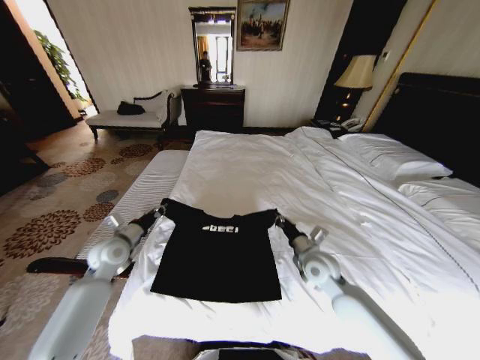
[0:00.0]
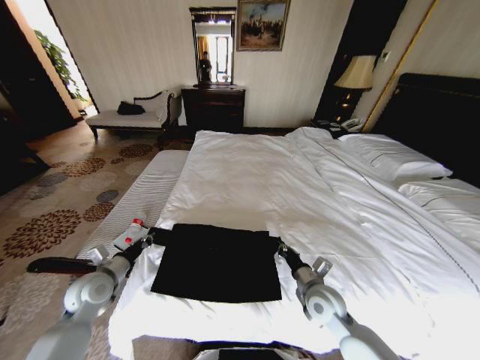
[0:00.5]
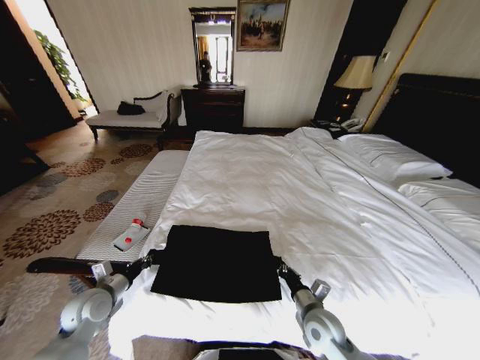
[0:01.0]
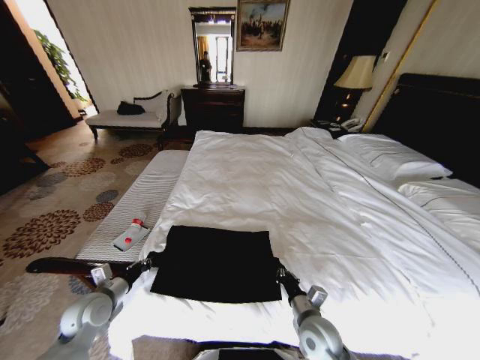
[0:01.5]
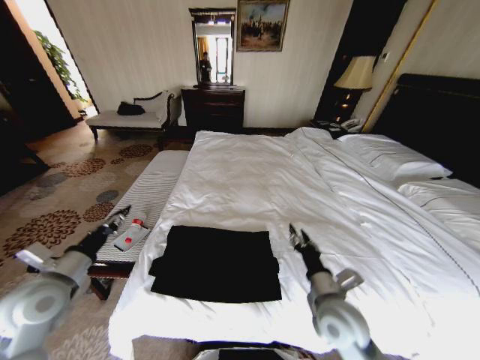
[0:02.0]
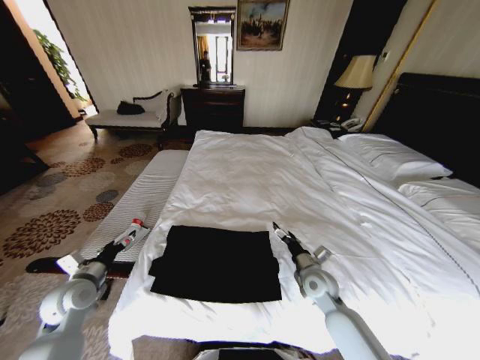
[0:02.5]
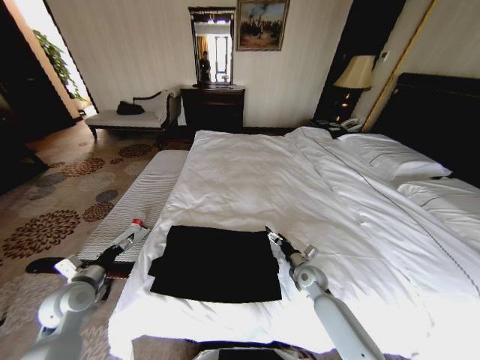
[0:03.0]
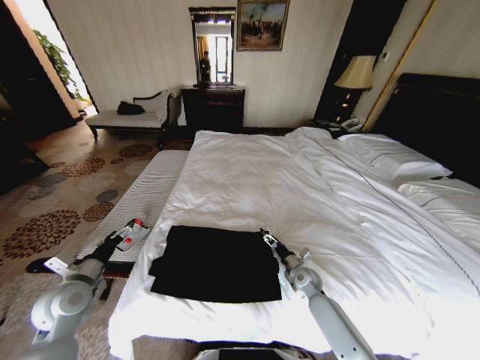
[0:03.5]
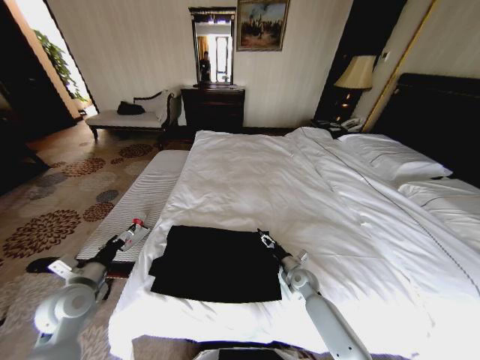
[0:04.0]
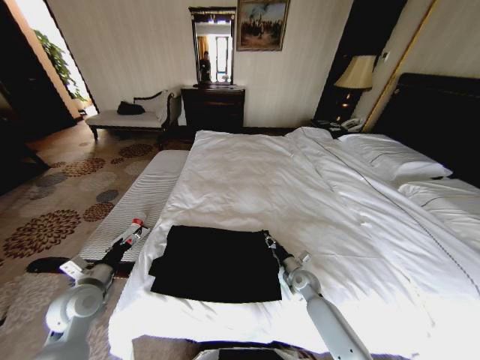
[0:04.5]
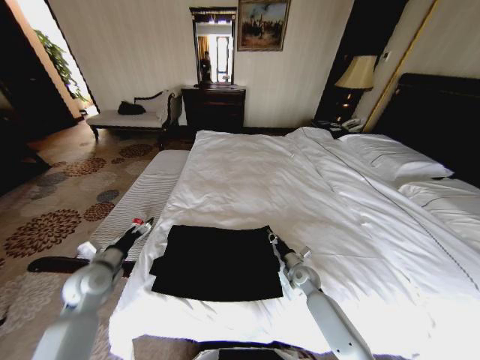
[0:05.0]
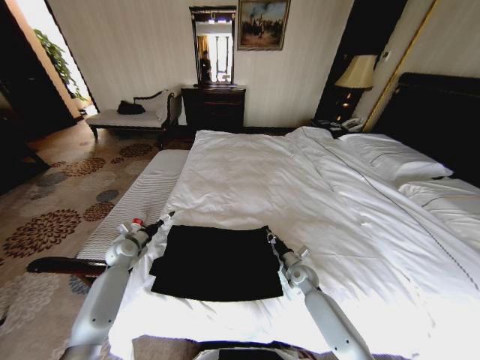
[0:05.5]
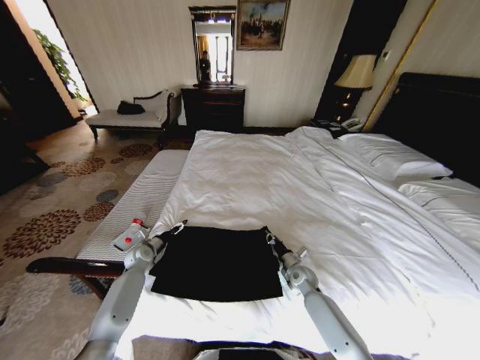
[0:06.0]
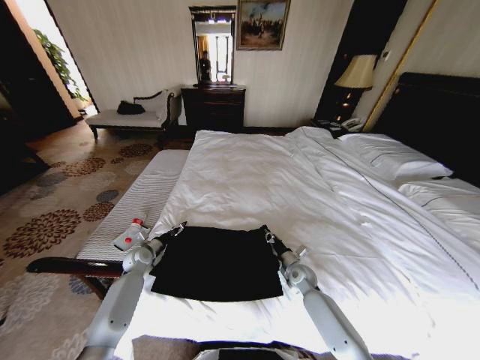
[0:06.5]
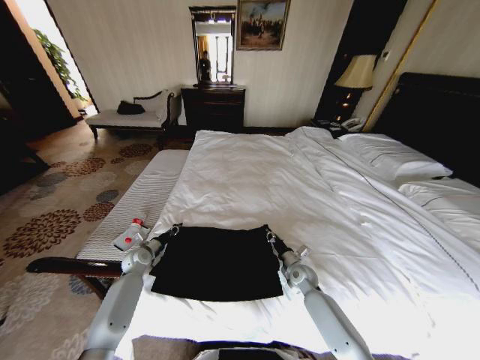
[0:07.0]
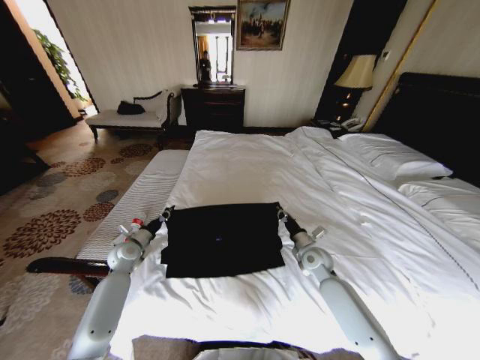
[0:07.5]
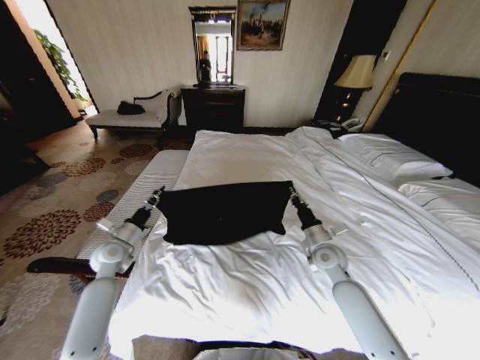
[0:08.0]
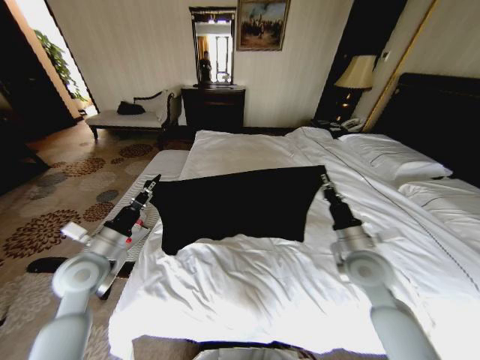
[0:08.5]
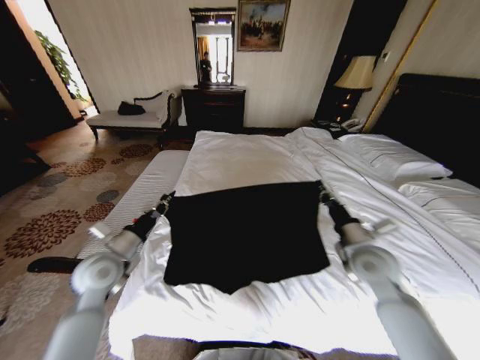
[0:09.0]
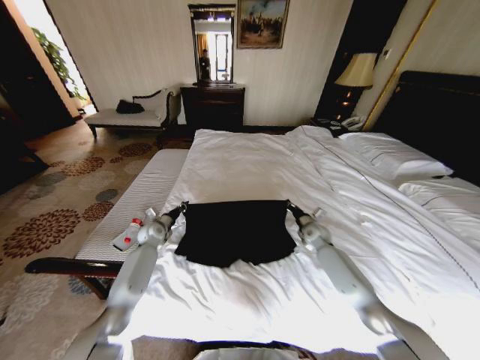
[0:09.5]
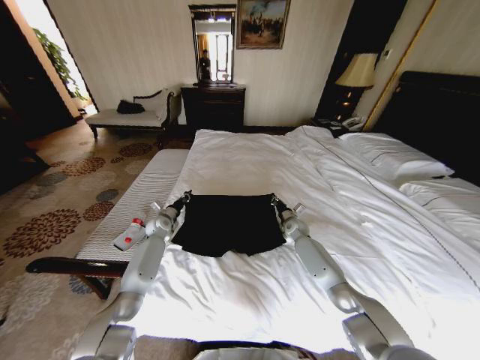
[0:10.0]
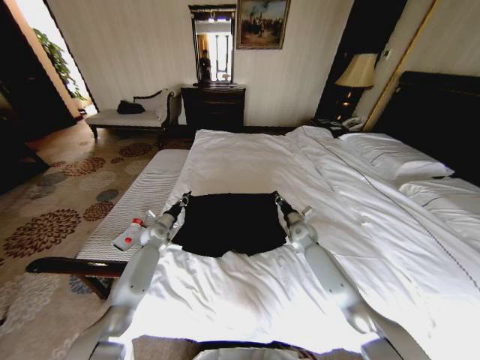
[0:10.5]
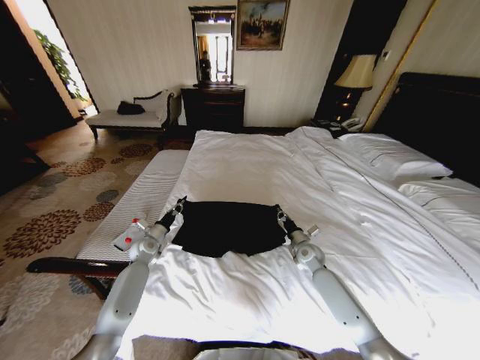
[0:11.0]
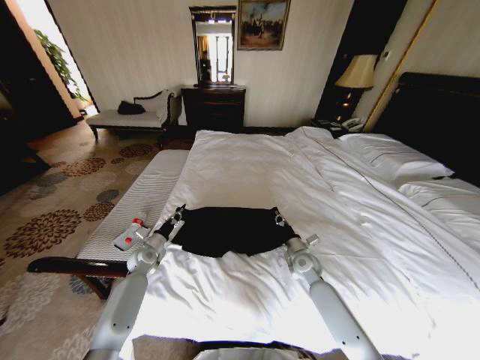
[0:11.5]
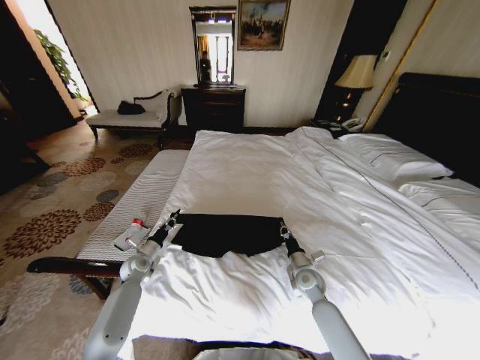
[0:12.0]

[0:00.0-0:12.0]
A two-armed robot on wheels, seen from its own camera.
Task of the whole recording: Fold the clothes on the bed.
0:00.0 to 0:02.0: The right gripper travels backward by some 15 cm, and opens. Meanwhile the left gripper travels backward and upward by about 15 cm, and opens its fingers.
0:02.0 to 0:04.0: The left gripper is displaced downward by approximately 5 cm, and opens. The right gripper shifts some 25 cm downward and forward.
0:04.0 to 0:06.0: The right gripper closes its fingers, while the left gripper heads forward and downward, covering approximately 25 cm.
0:06.0 to 0:08.0: The left gripper heads upward and backward, covering approximately 15 cm, and closes; the right gripper travels upward by about 15 cm.
0:08.0 to 0:10.0: The left gripper goes approximately 20 cm forward, to the right and downward; the right gripper heads forward and downward, covering some 20 cm.
0:10.0 to 0:12.0: The right gripper shifts roughly 20 cm backward. Meanwhile the left gripper goes roughly 15 cm backward and to the left.

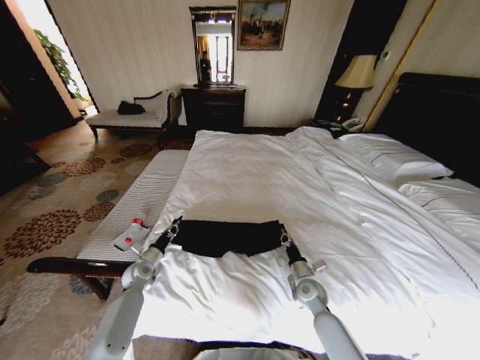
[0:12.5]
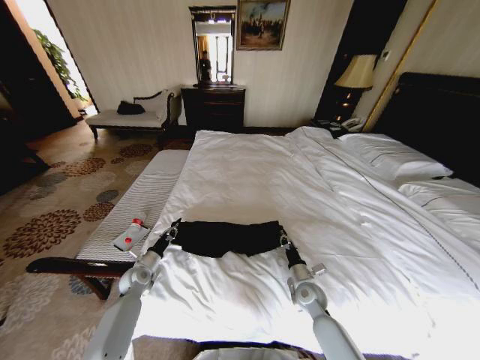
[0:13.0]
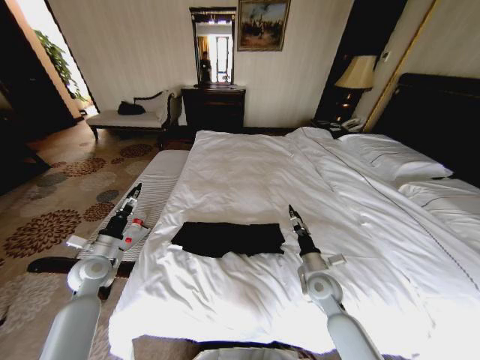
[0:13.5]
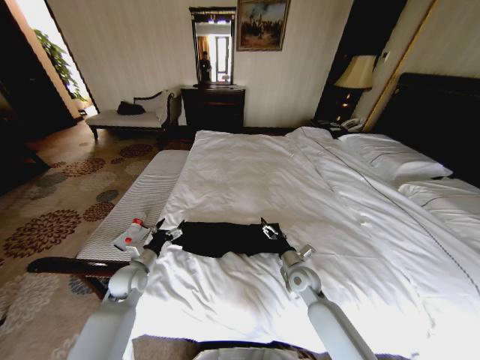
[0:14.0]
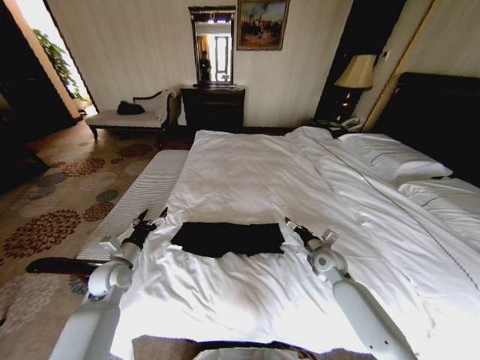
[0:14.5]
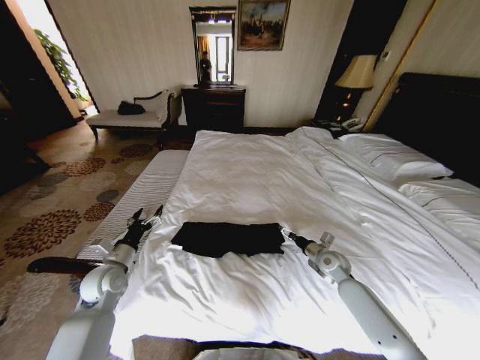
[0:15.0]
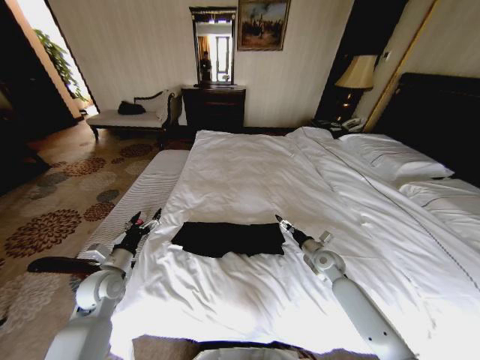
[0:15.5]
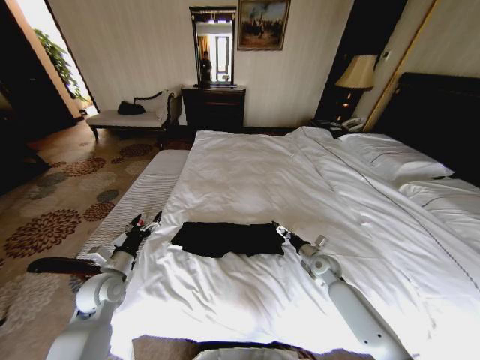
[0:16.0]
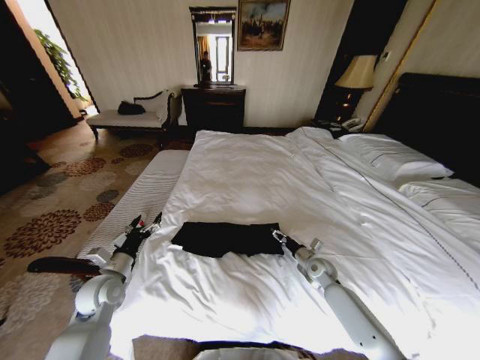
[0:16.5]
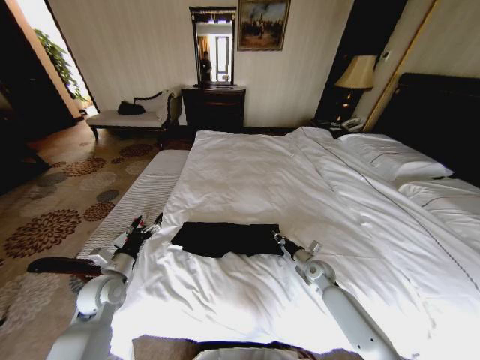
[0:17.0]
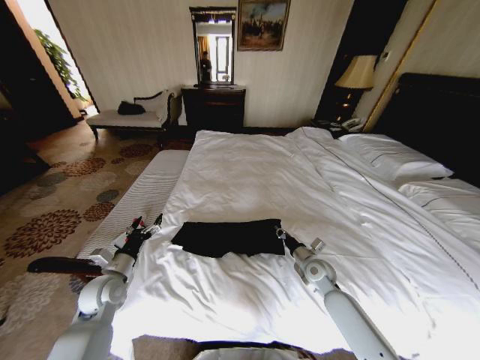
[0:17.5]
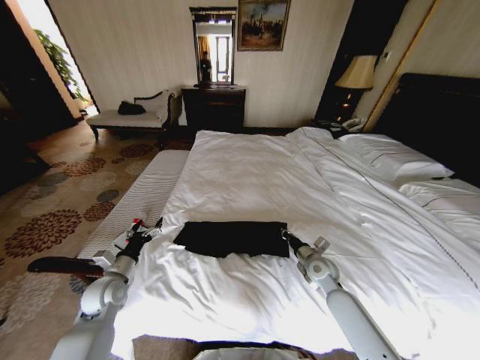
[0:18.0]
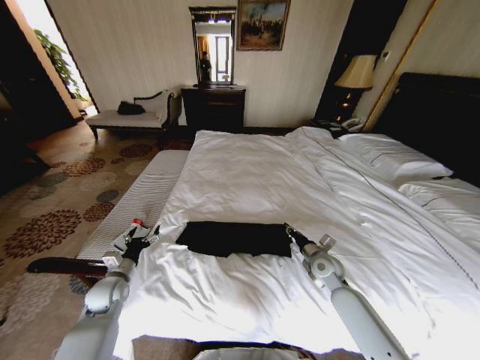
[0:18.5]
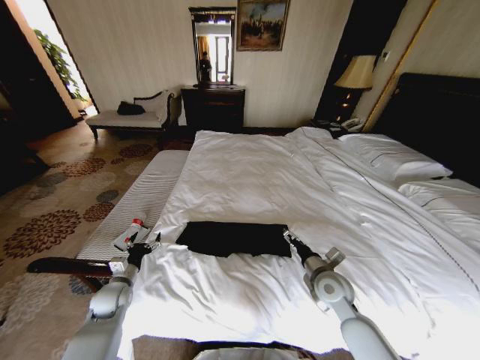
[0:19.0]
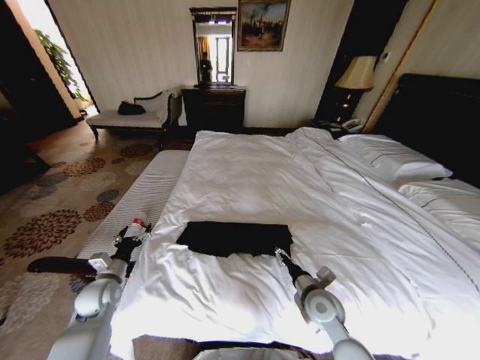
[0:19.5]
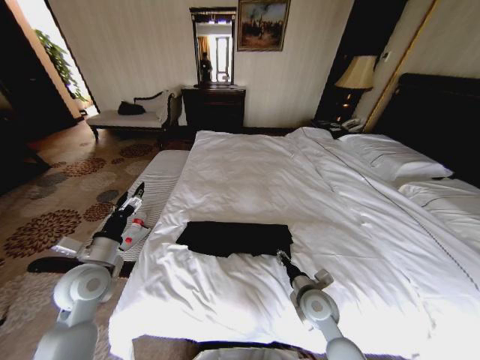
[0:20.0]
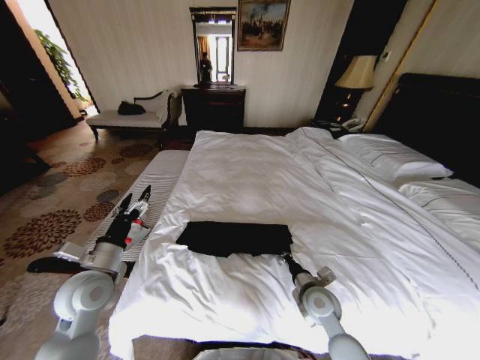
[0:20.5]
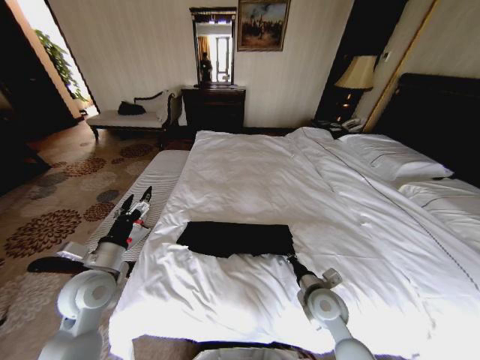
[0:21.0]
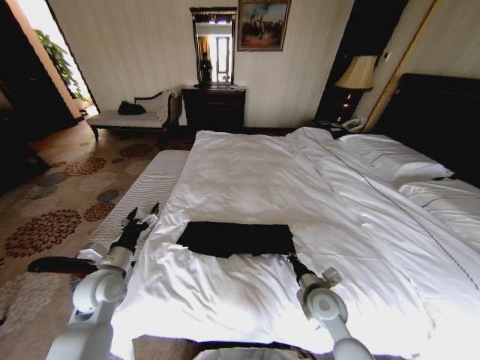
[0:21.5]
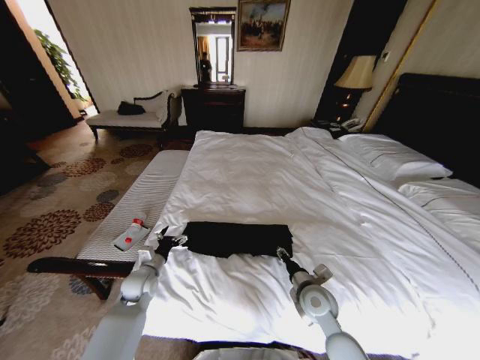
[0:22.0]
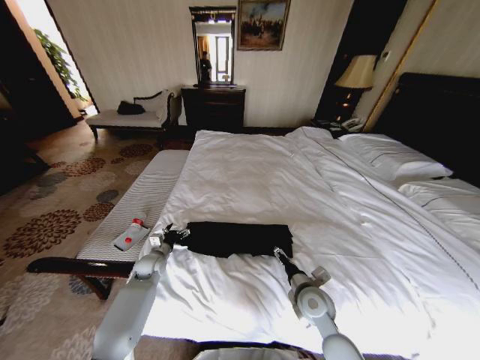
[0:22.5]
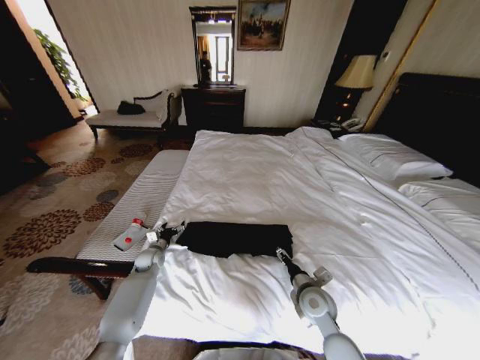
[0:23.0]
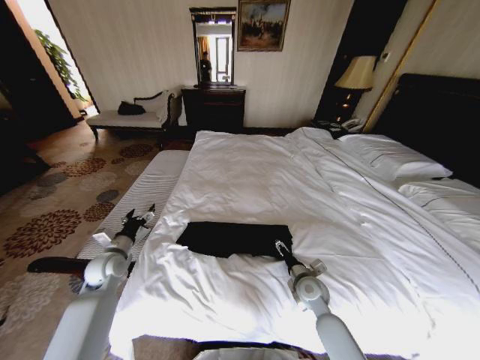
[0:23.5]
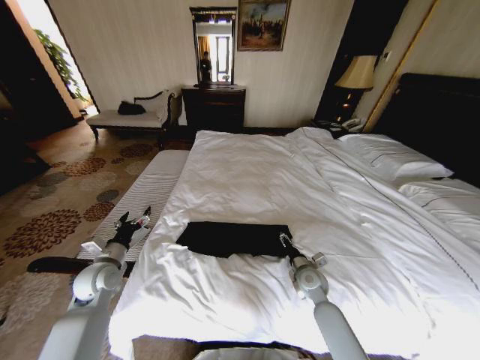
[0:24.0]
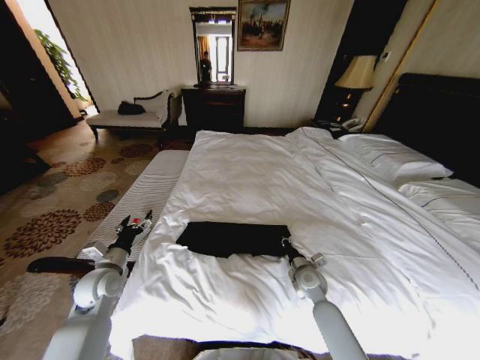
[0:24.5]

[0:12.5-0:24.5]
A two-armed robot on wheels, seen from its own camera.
Task of the whole recording: Fold the clothes on the bed.
0:12.5 to 0:14.5: The left gripper goes up and down, roughly 15 cm each way, reversing 2 times, and opens up; the right gripper moves upward, forward and to the right, about 10 cm, and opens.
0:14.5 to 0:16.5: The right gripper is displaced downward by approximately 5 cm.
0:16.5 to 0:18.5: The right gripper goes roughly 5 cm upward, and closes up, while the left gripper is displaced downward by roughly 5 cm.
0:18.5 to 0:20.5: The right gripper heads backward and to the left, covering roughly 15 cm, and opens, then closes once more, while the left gripper goes approximately 15 cm upward.
0:20.5 to 0:22.5: The right gripper opens its fingers. Meanwhile the left gripper heads downward and forward, covering approximately 25 cm.
0:22.5 to 0:24.5: The right gripper moves forward and downward, about 10 cm, and closes up. The left gripper moves upward, backward and to the left, approximately 15 cm.

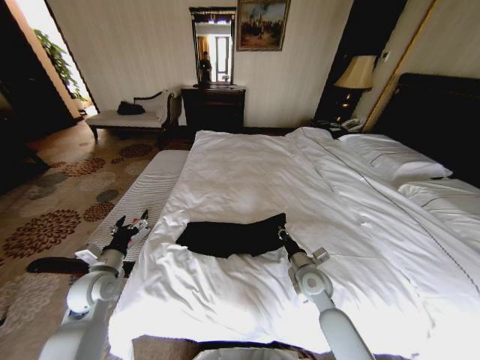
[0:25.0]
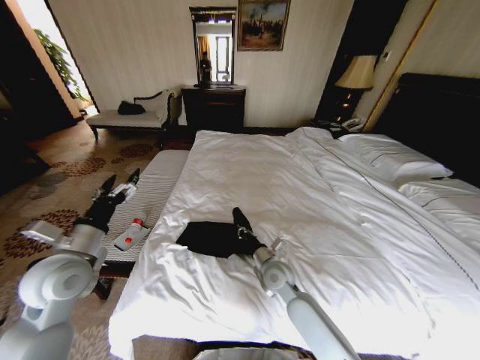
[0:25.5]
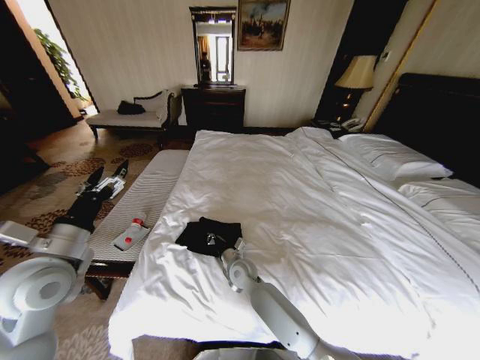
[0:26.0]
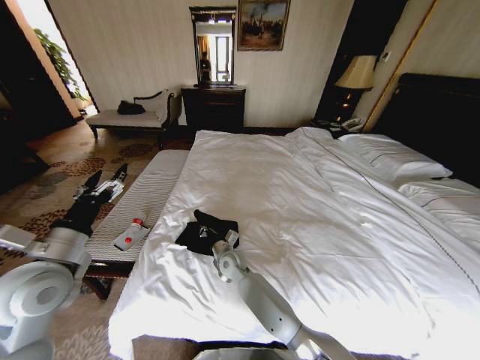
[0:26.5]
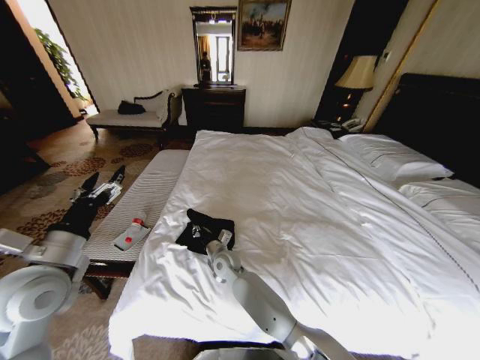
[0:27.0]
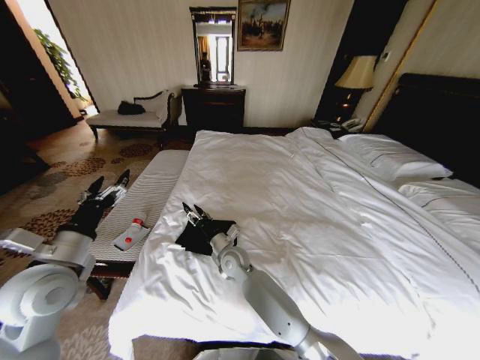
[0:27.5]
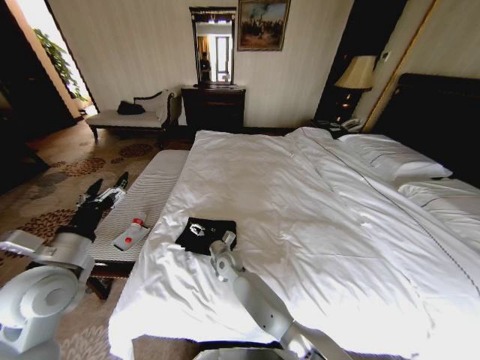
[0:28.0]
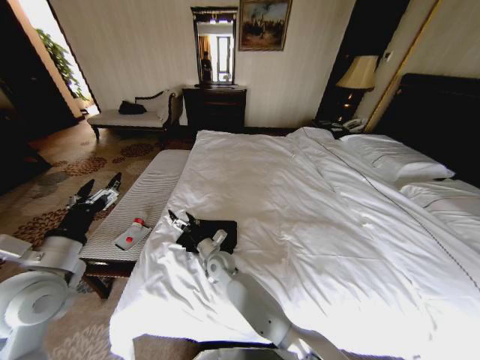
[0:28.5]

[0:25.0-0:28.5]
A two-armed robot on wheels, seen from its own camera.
Task of the whole recording: Fold the clothes on the bed.
0:25.0 to 0:27.0: The right gripper moves to the left, roughly 25 cm. Meanwhile the left gripper heads upward, covering roughly 15 cm.
0:27.0 to 0:28.5: The right gripper swings up and down, some 5 cm each way, with 2 reversals, and opens up.
